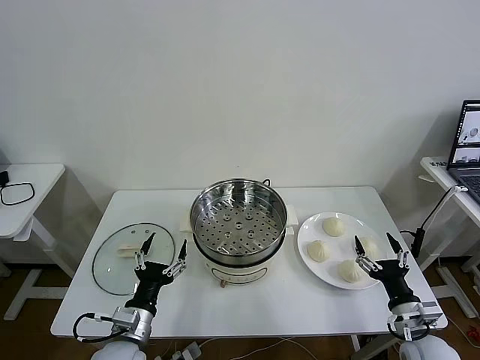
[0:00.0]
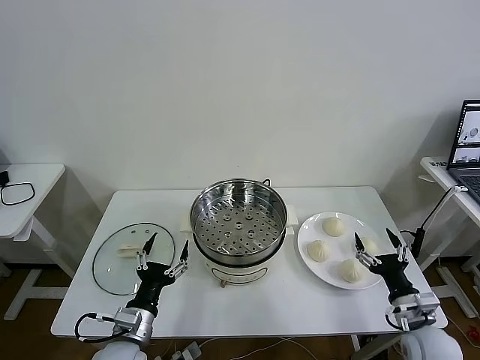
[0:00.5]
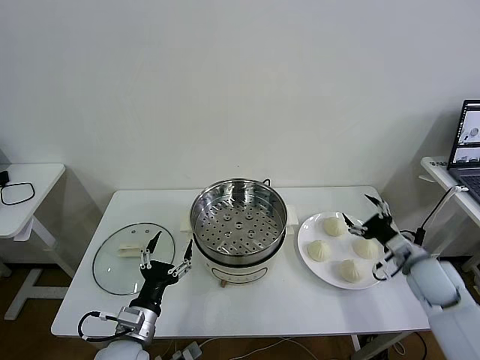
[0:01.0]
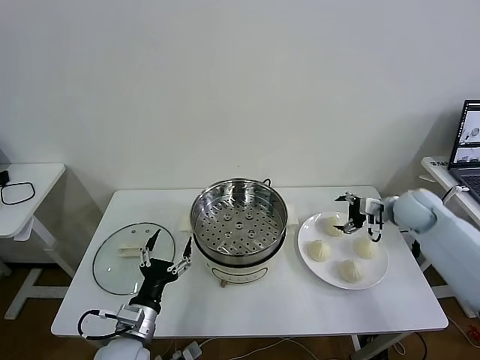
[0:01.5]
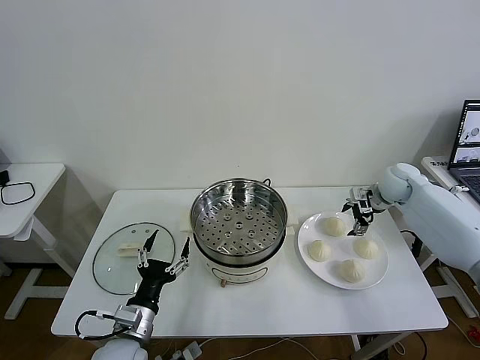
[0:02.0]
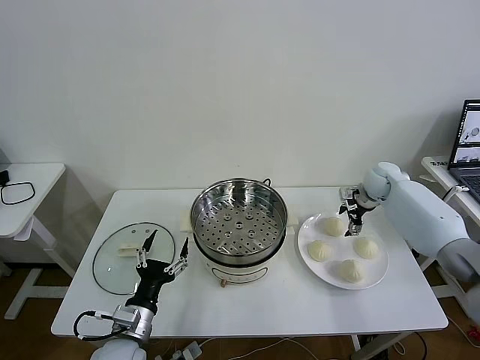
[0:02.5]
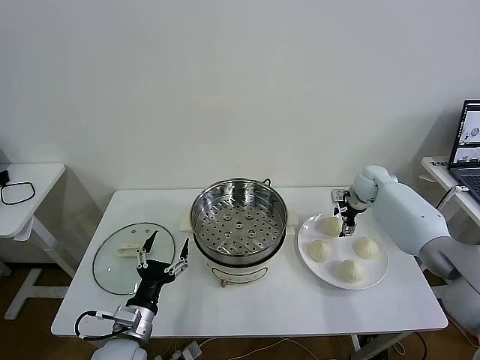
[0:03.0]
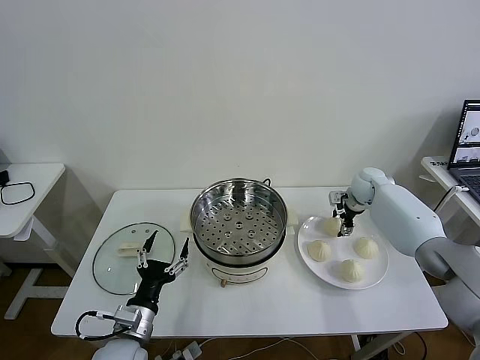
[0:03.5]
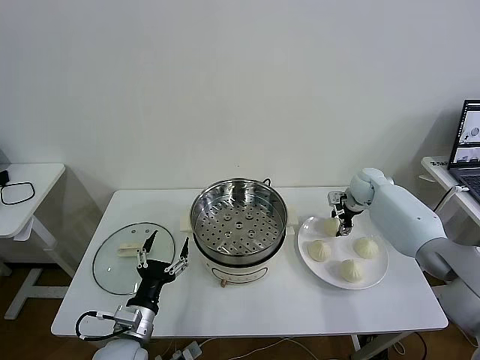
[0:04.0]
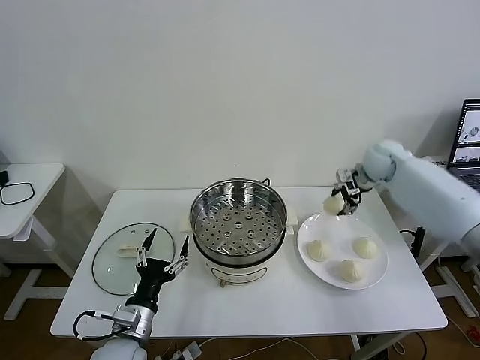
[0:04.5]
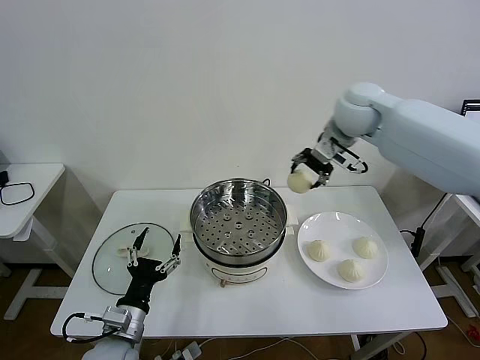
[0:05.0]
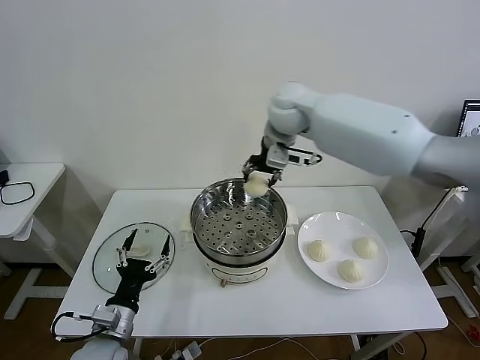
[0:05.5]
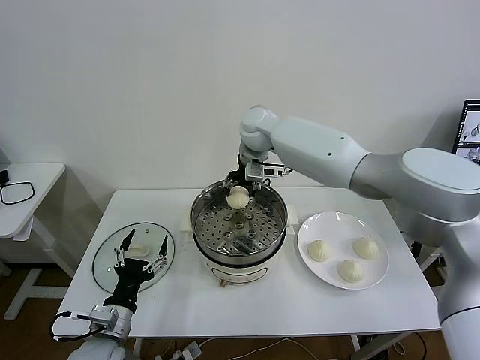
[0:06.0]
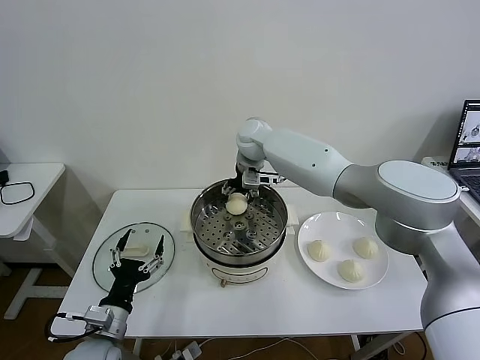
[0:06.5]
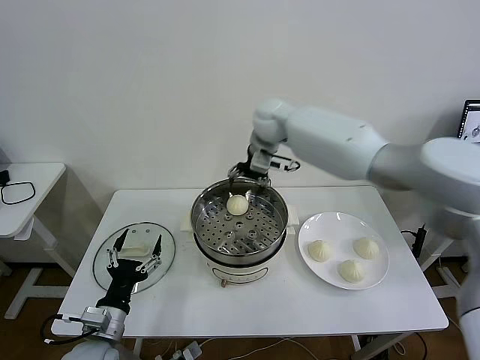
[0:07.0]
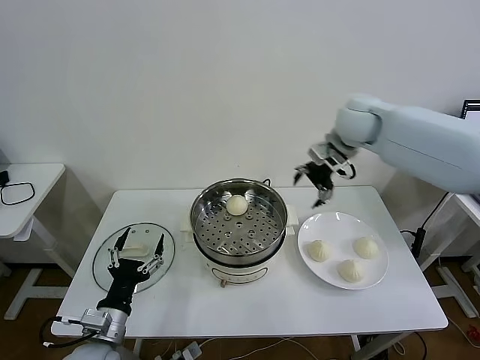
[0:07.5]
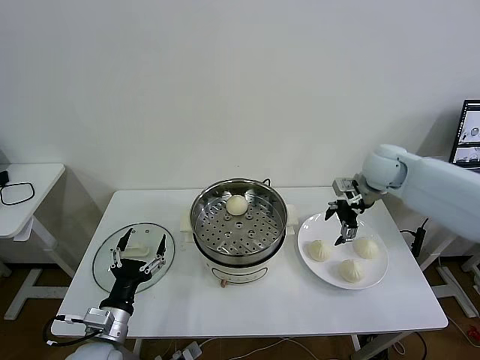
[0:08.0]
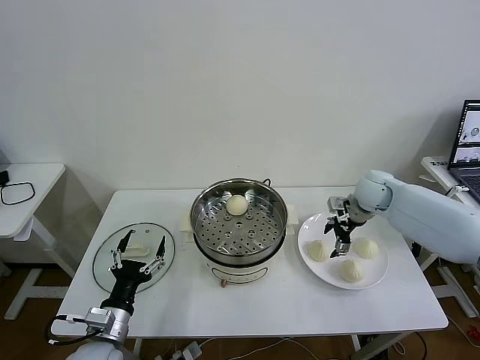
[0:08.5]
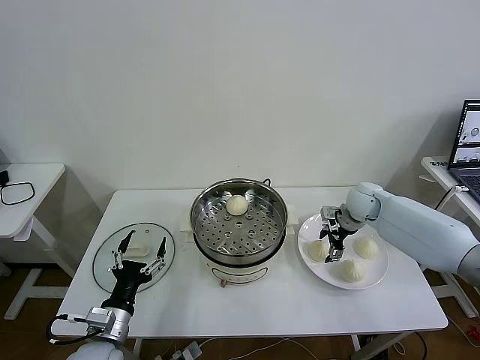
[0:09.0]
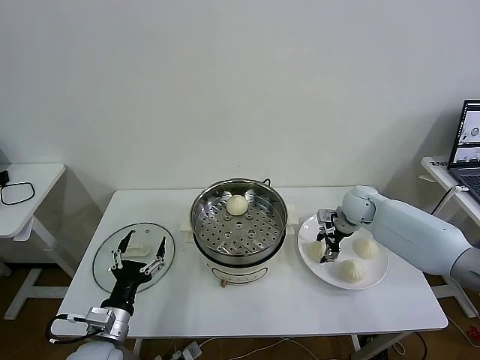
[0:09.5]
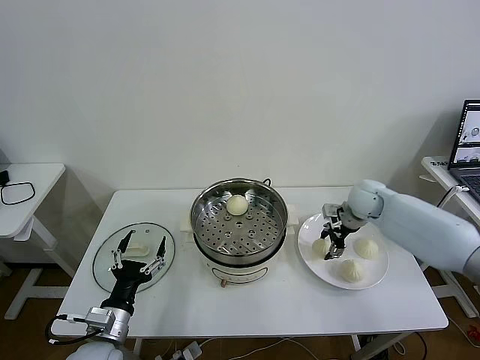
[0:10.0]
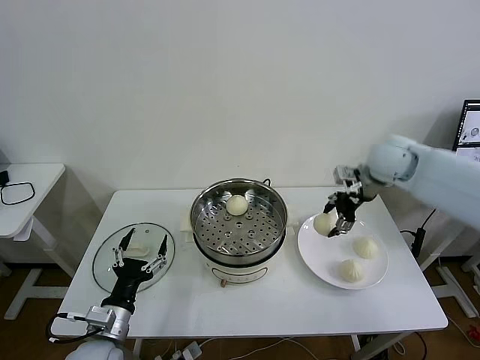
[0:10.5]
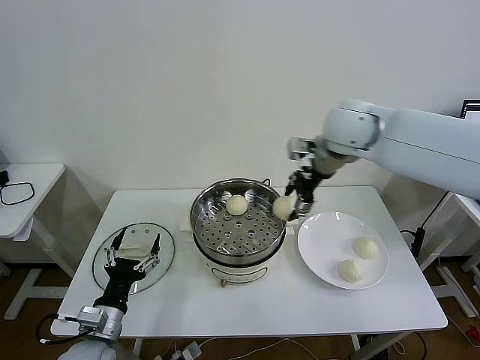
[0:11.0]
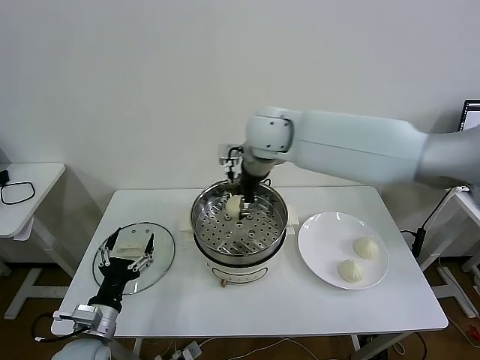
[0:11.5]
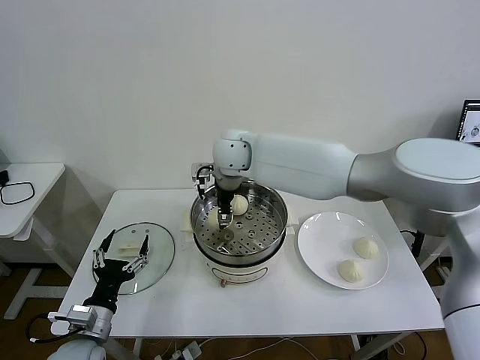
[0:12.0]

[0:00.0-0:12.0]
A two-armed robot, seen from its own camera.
Task of the whole recording: take steamed baozi put them in steamer then cover it.
Step, 0.0 to 3.5 s: Grasp the baozi in the plate with right gripper.
Step, 4.0 to 6.5 s: Place the baozi on the steamer with right gripper.
Step, 7.0 to 9.5 s: Grasp the baozi in the plate with right gripper.
2.0 to 4.0 s: The right gripper shifts by approximately 5 cm, and closes up.
4.0 to 6.0 s: The right gripper is displaced to the left and upward by approximately 35 cm.
6.0 to 8.0 s: The right gripper is displaced to the right by about 30 cm, and opens its fingers.
8.0 to 10.0 s: The right gripper moves downward, some 10 cm, and closes up.
10.0 to 12.0 s: The right gripper shifts approximately 35 cm to the left.

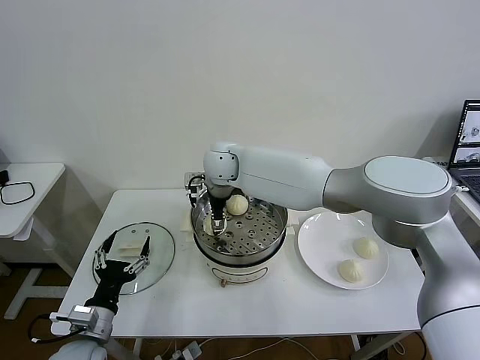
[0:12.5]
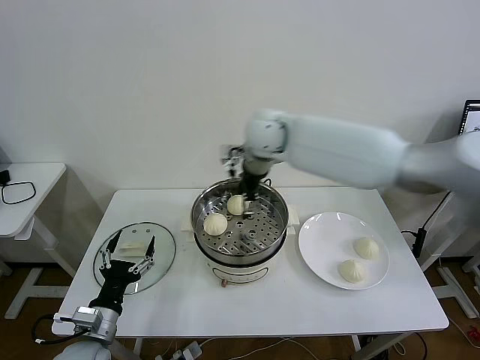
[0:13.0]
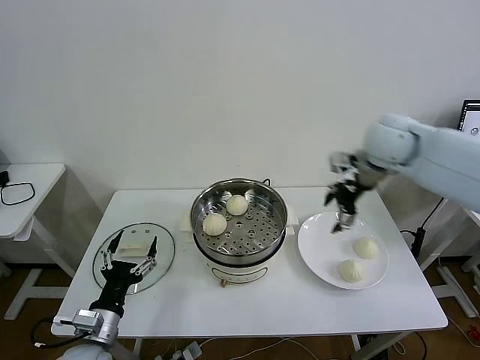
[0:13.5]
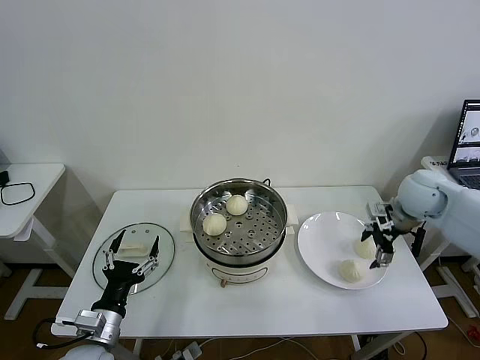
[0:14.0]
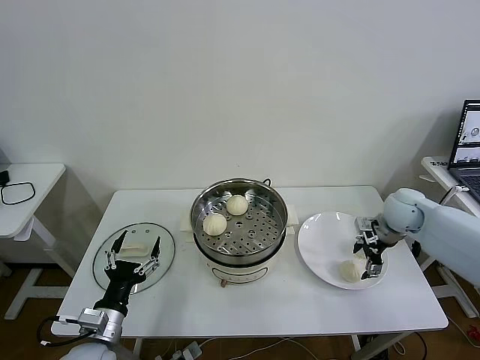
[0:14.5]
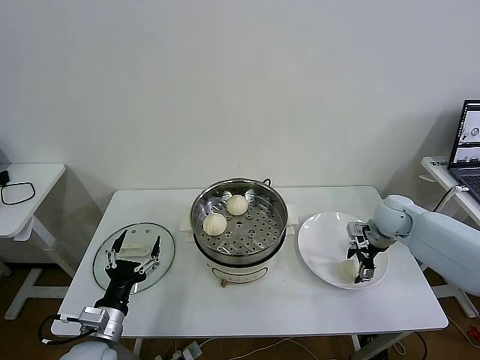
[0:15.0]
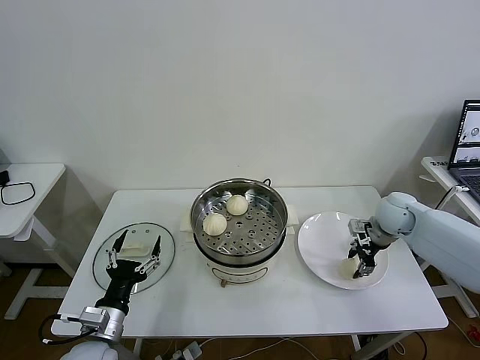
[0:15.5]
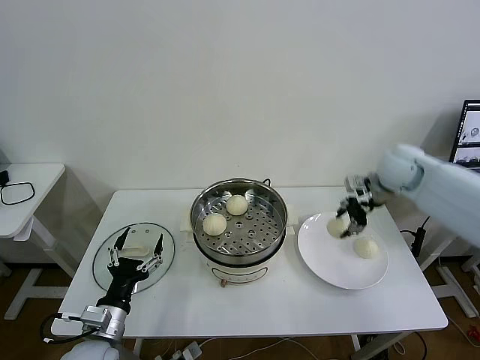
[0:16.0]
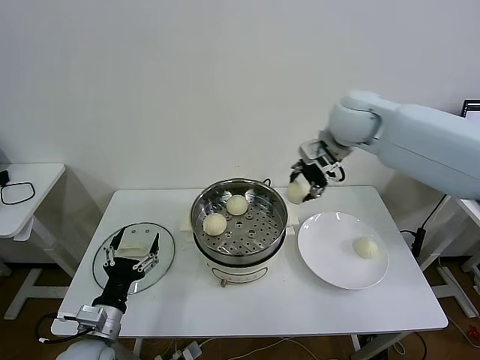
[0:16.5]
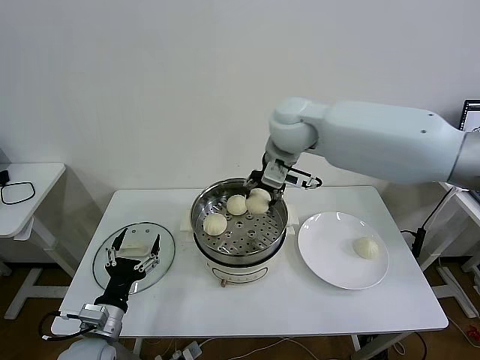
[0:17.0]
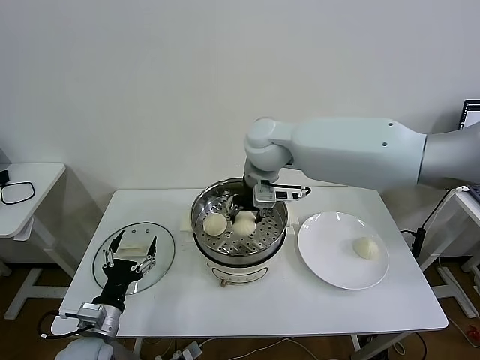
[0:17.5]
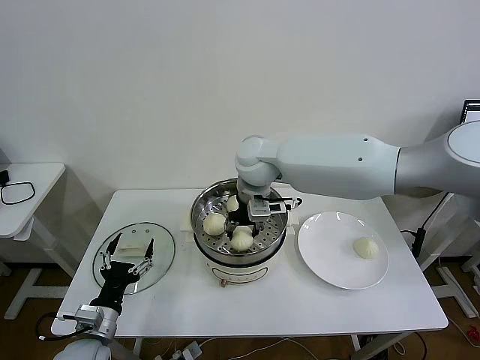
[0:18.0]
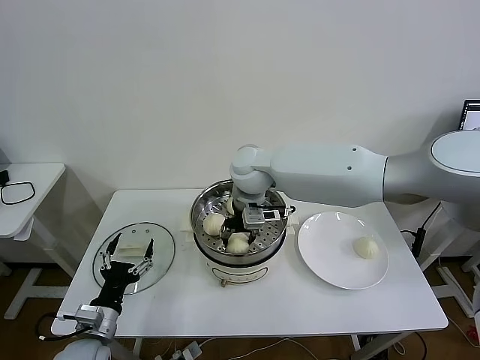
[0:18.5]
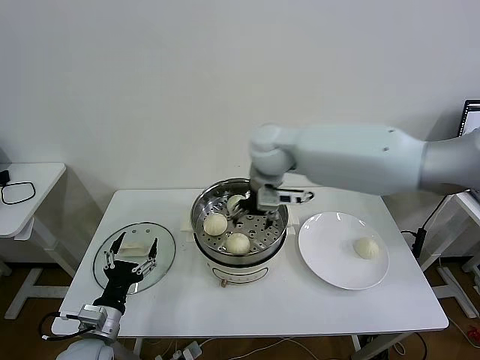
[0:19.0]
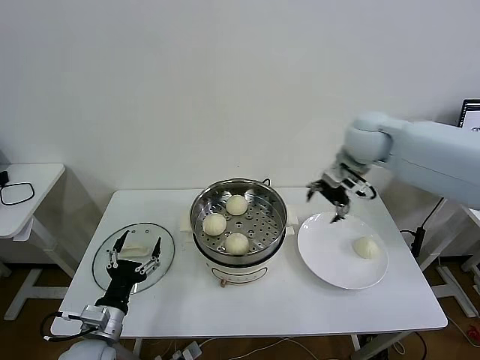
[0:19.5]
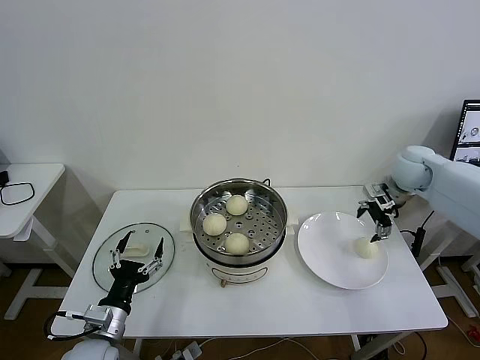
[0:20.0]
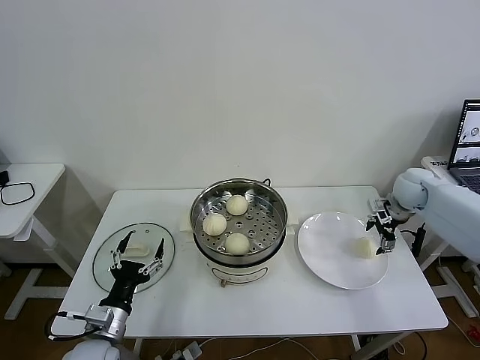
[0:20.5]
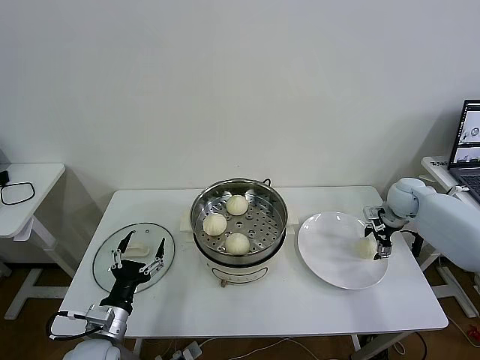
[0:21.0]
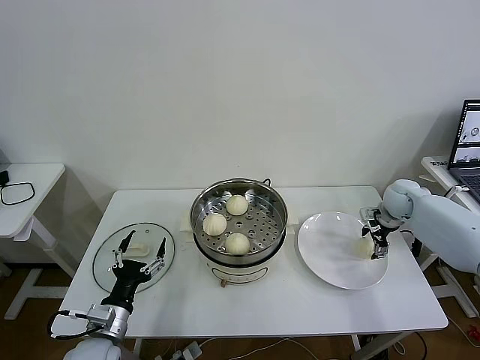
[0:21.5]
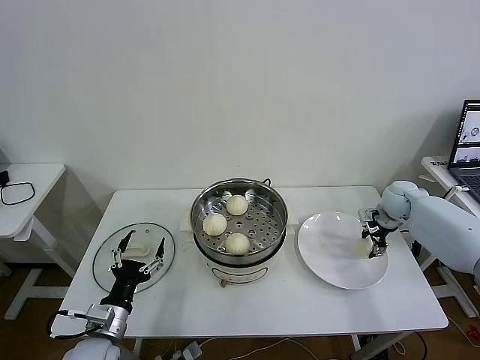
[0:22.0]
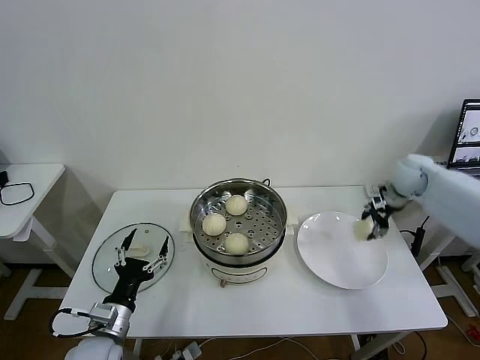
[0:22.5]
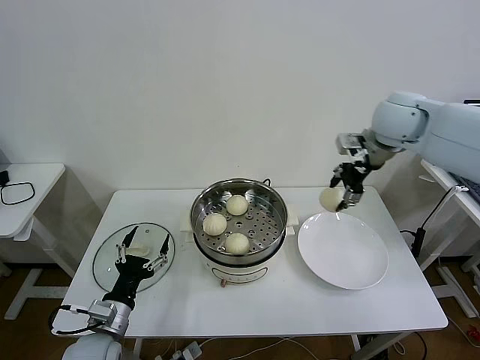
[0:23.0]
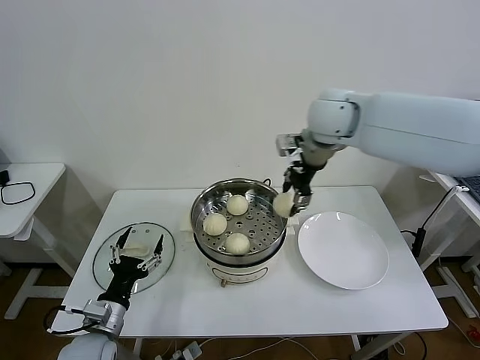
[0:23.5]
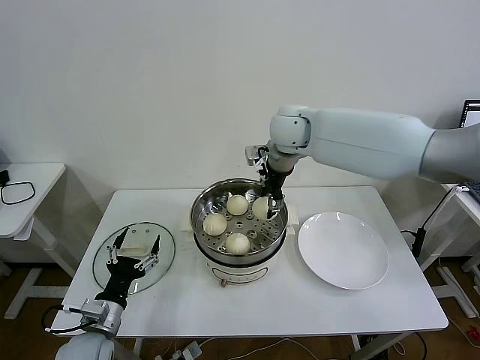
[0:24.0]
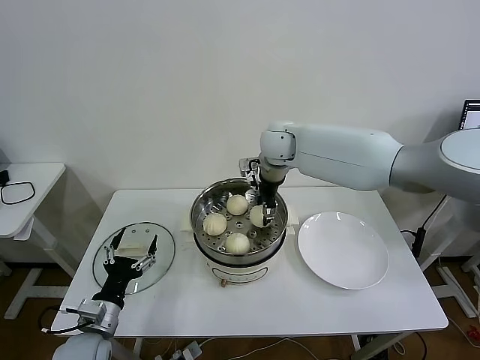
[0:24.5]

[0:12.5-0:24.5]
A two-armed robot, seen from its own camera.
Task of the whole recording: take steamed baozi put them in steamer then cover it.
Step, 13.0 to 15.0 s: Grasp the baozi in the plate with right gripper.
Step, 15.5 to 18.5 s: Place the baozi on the steamer with right gripper.
Step, 19.0 to 21.5 s: Grasp the baozi in the plate with right gripper.
12.5 to 14.5 s: The right gripper travels to the right by some 40 cm.
14.5 to 16.5 s: The right gripper goes some 30 cm upward and to the left, and closes its fingers.
16.5 to 18.5 s: The right gripper travels to the left and downward by about 20 cm, and opens up.
18.5 to 20.5 s: The right gripper goes some 40 cm to the right, and opens its fingers.
20.5 to 22.5 s: The right gripper shifts by approximately 5 cm, and closes its fingers.
22.5 to 24.5 s: The right gripper is displaced to the left by about 30 cm.

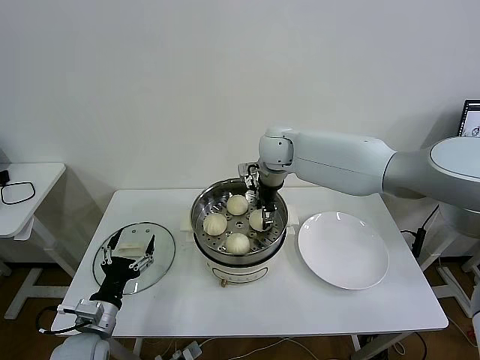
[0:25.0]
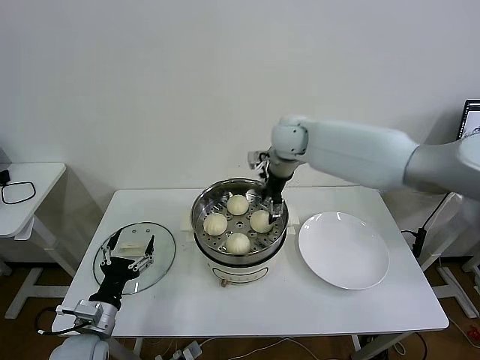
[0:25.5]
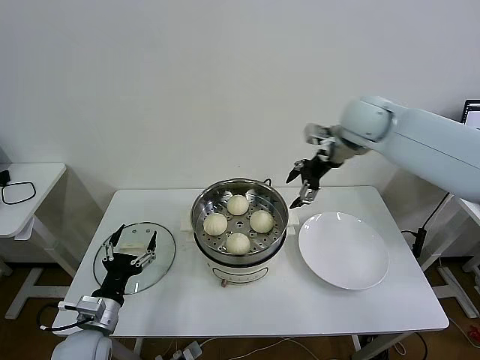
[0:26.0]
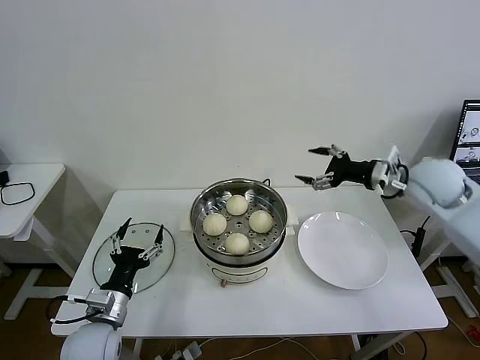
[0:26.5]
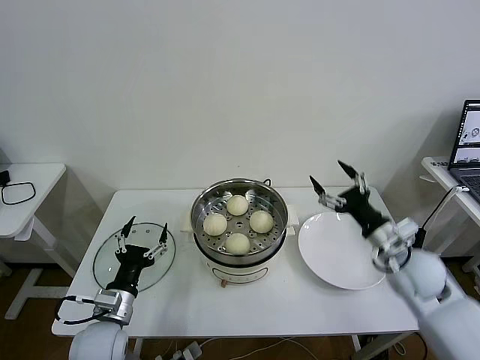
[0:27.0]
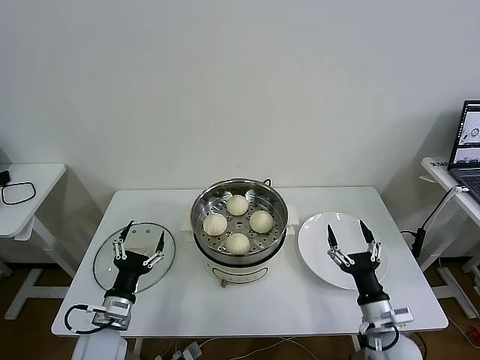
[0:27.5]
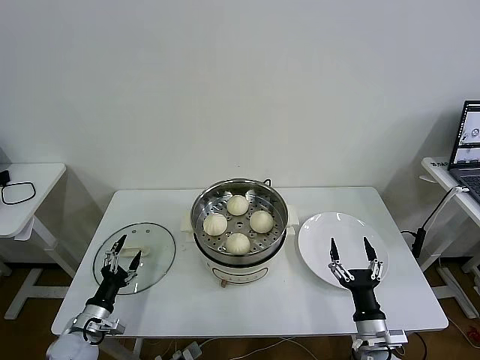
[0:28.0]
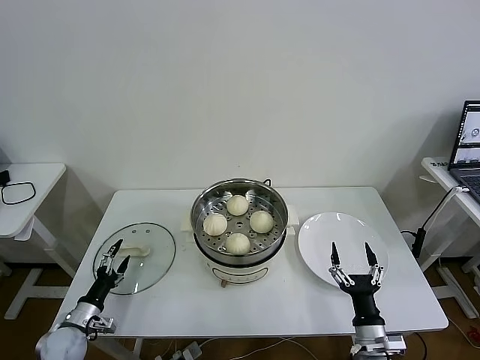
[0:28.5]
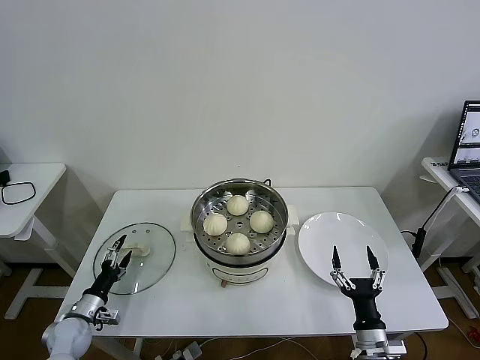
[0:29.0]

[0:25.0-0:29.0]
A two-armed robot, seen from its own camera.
Task of the whole recording: take steamed baozi put them in steamer then cover it.
25.0 to 27.0 s: The right gripper shifts about 40 cm to the right, backward and downward, and opens its fingers.
27.0 to 29.0 s: The left gripper travels to the left and downward by about 20 cm. The right gripper travels downward and backward by roughly 25 cm.
